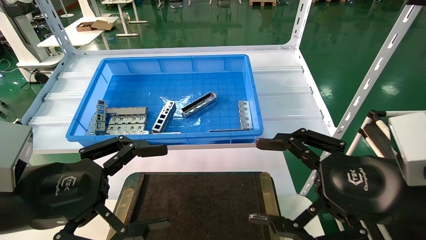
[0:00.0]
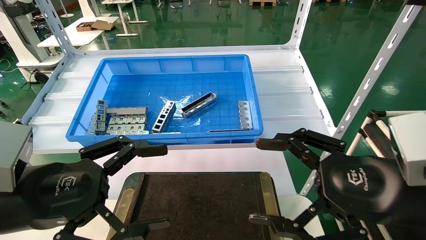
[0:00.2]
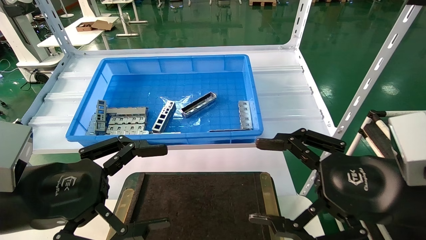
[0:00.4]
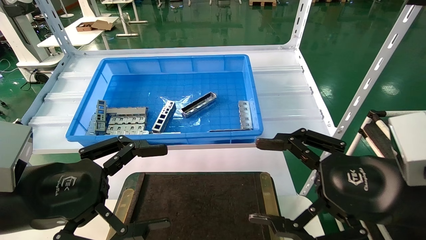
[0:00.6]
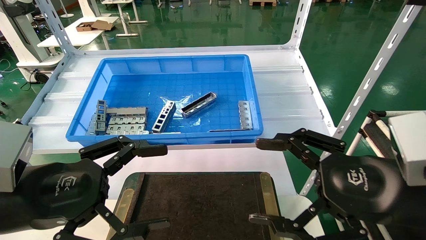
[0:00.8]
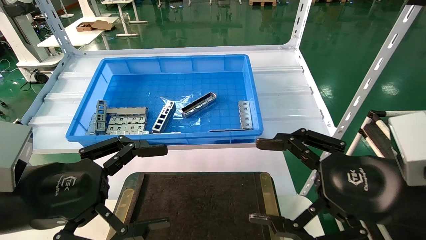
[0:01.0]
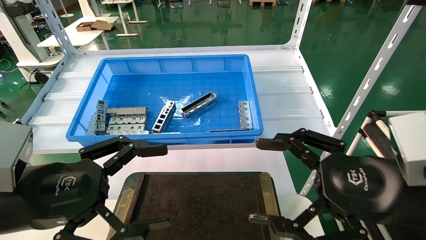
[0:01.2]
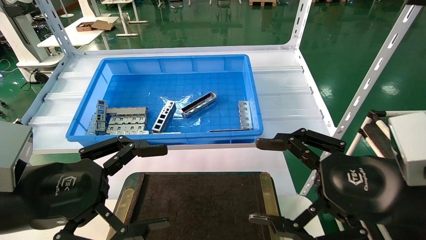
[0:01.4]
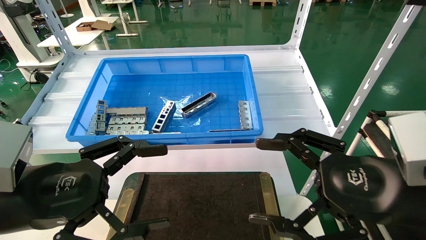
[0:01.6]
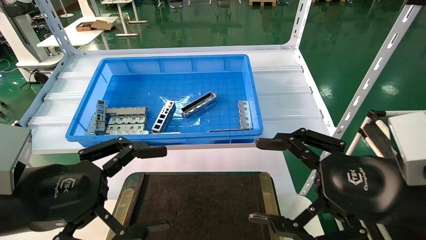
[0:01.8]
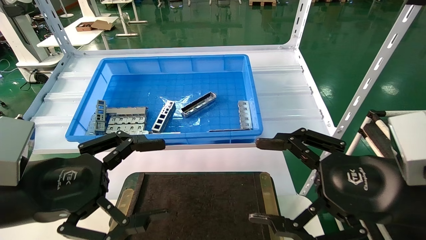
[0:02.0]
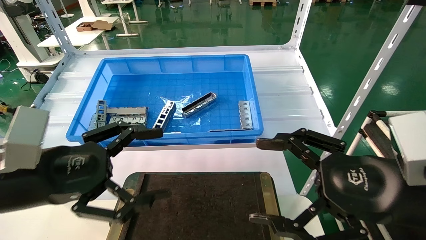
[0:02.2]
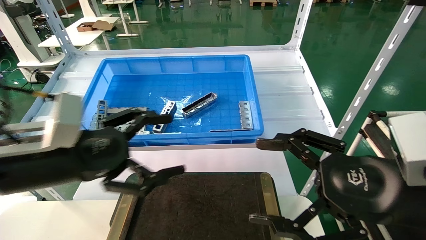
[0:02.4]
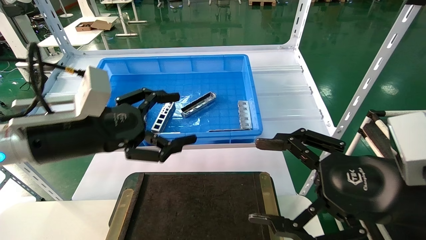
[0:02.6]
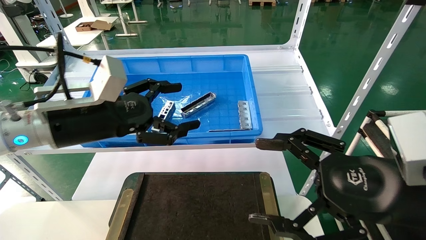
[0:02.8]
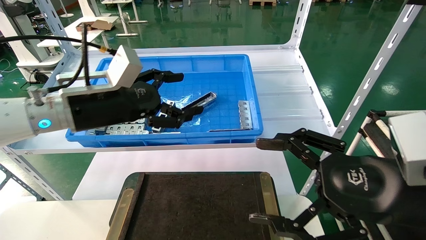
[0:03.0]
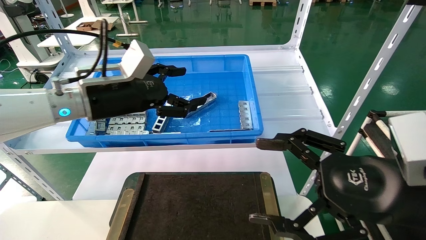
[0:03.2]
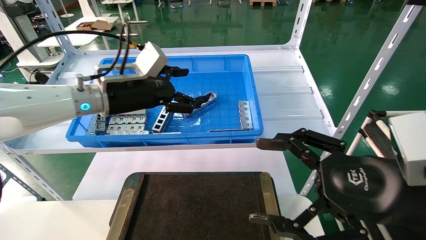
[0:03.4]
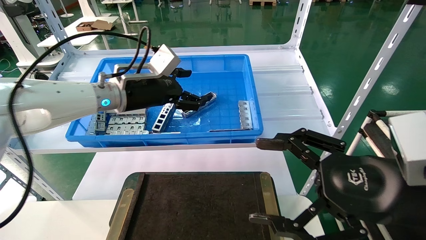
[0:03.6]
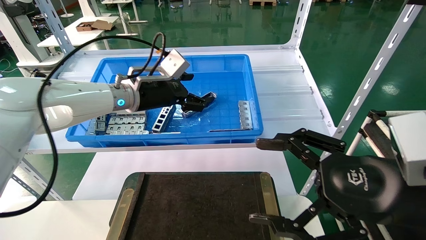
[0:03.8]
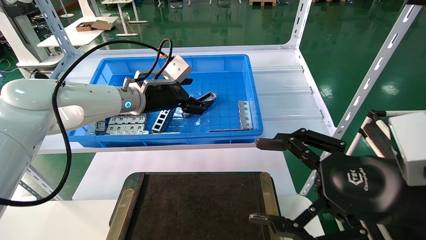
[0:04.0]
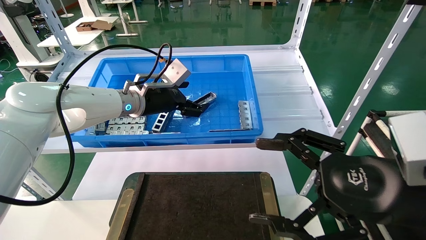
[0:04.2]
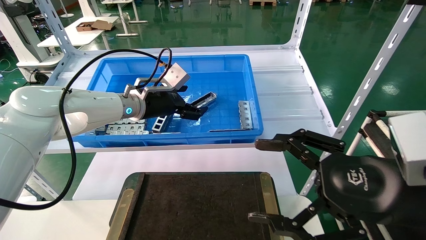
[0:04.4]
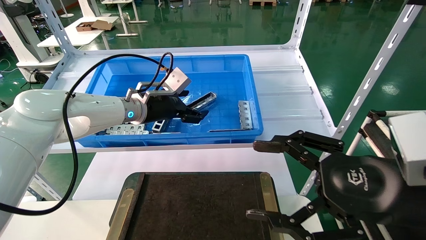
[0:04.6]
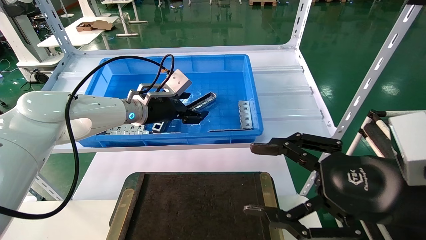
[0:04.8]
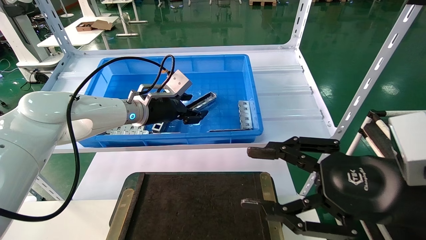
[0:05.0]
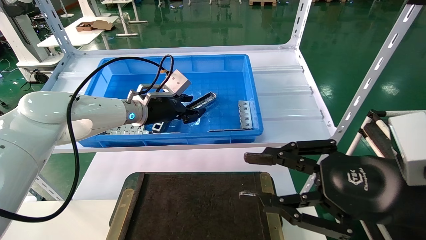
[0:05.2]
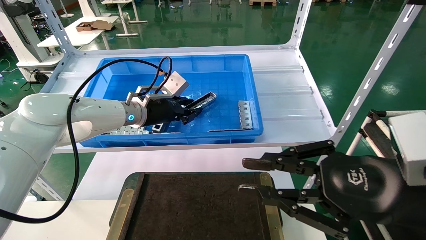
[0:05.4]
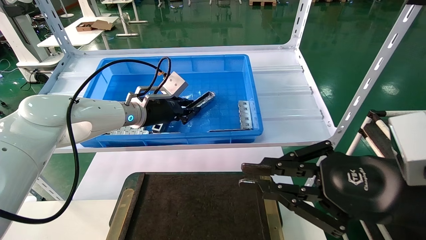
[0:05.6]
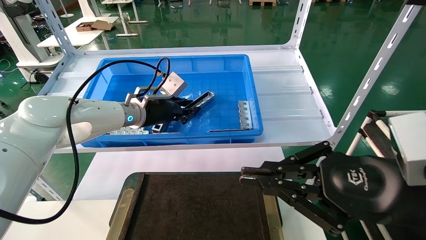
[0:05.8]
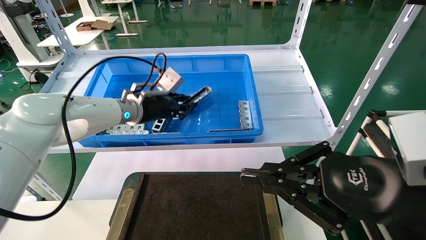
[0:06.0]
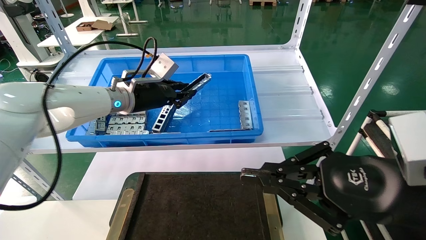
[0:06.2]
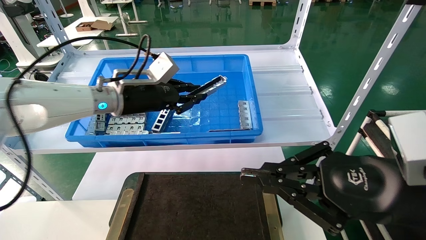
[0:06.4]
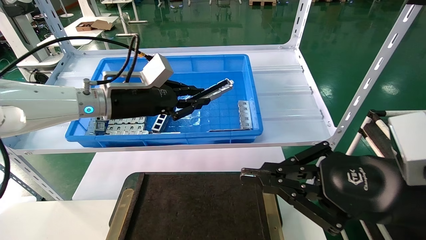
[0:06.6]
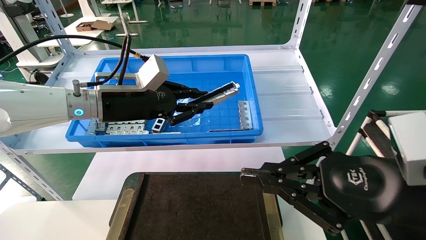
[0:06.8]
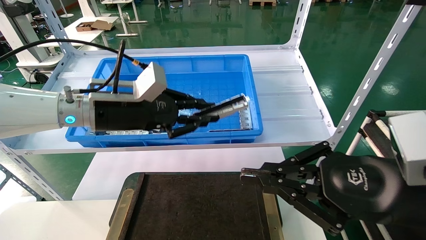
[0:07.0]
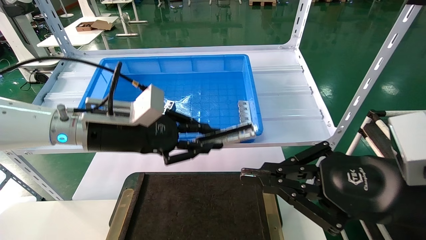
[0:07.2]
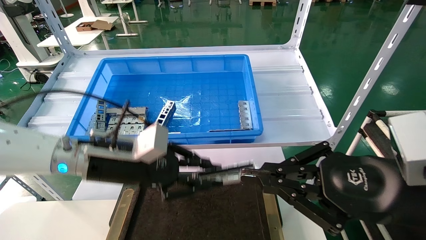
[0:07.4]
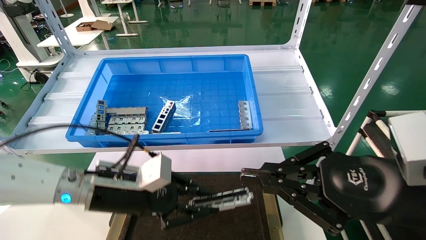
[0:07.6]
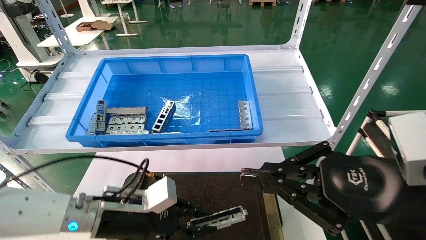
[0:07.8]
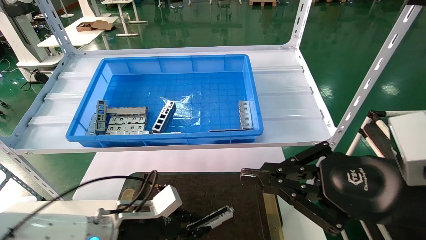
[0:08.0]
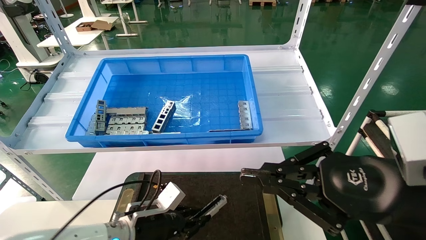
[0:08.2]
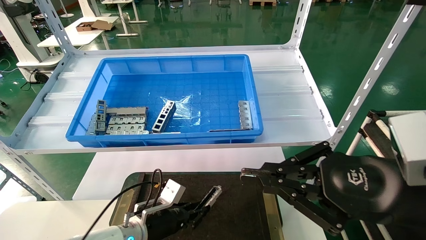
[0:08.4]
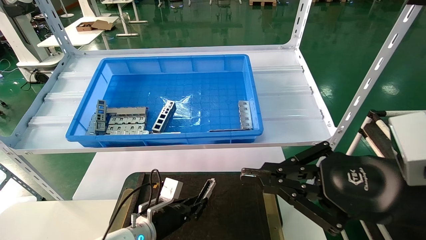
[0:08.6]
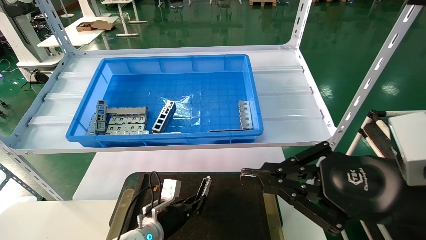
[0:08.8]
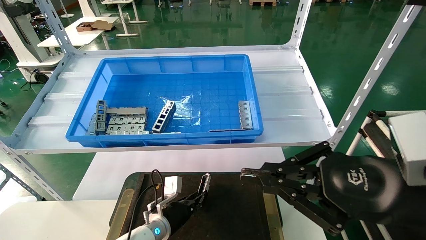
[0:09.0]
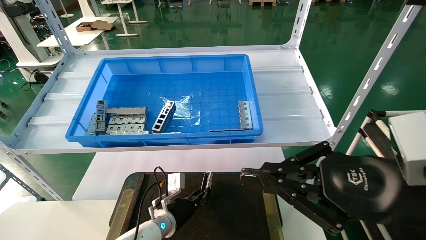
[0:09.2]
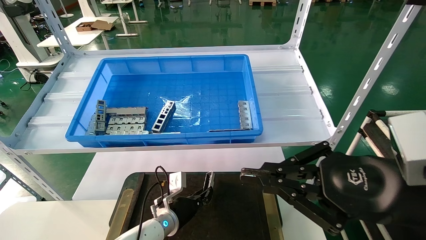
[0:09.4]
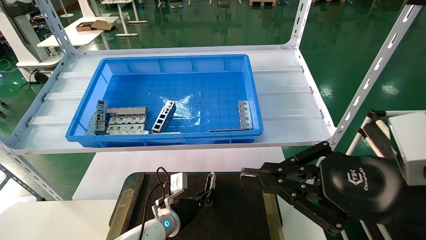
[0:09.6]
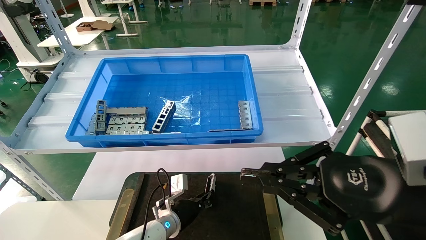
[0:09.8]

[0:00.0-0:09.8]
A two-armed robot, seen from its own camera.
Task of the whole recording: Grasp the part with one hand and place it on the black container.
Step, 0:02.0 to 0:05.4: Pick up the front USB bracket from the feeding area.
0:00.0 to 0:01.4: Neither gripper changes place.
0:01.4 to 0:02.8: The left gripper travels forward and upward by roughly 15 cm.
0:02.8 to 0:04.2: The left gripper shifts approximately 15 cm forward.
0:04.2 to 0:05.6: The right gripper closes. The left gripper closes.
0:05.6 to 0:07.0: The left gripper moves backward, approximately 10 cm.
0:07.0 to 0:08.4: The left gripper travels downward by roughly 30 cm.
0:08.4 to 0:09.8: The left gripper travels forward and to the right by approximately 10 cm.

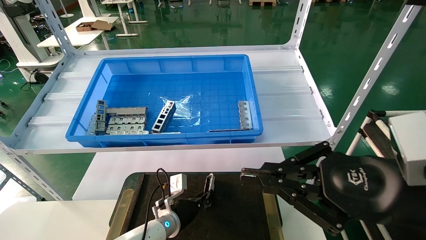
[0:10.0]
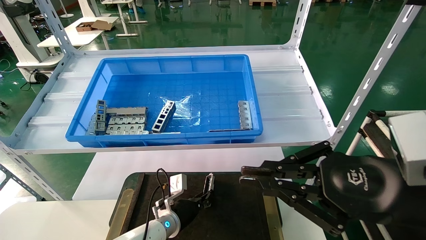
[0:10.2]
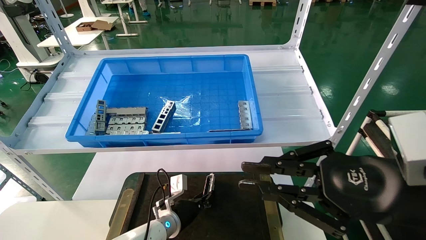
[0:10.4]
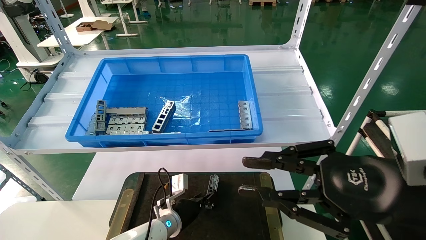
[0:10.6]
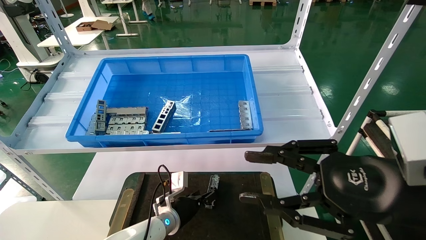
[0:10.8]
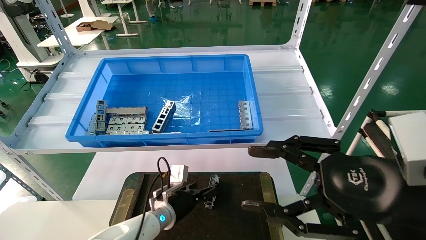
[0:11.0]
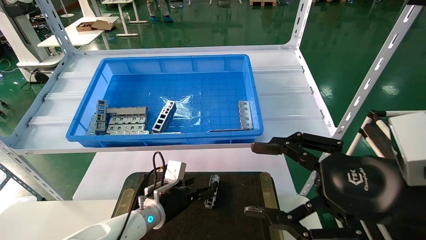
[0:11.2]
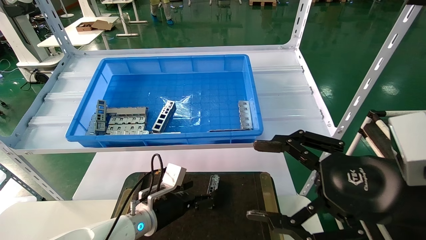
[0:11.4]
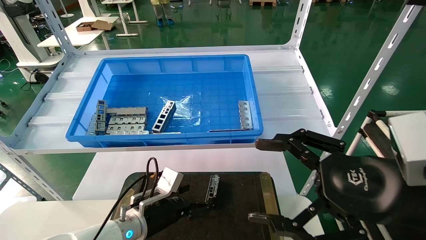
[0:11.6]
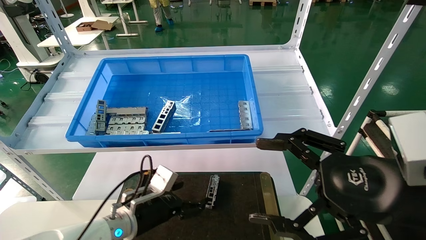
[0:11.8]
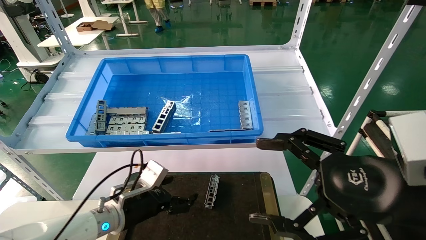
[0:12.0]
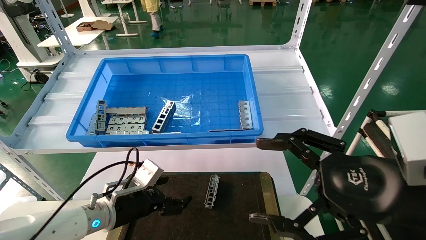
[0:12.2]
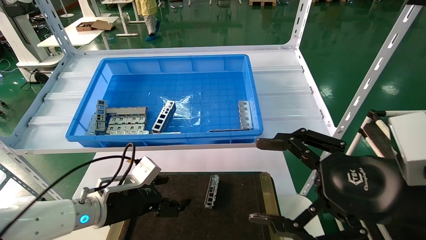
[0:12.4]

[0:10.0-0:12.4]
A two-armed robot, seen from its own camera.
Task of the whole recording: Grasp the part with one hand and place it on the black container.
0:10.0 to 0:11.2: The left gripper heads upward, covering some 5 cm, and opens its fingers. Meanwhile the right gripper opens.
0:11.2 to 0:12.4: The left gripper travels to the left, upward and backward by some 15 cm.

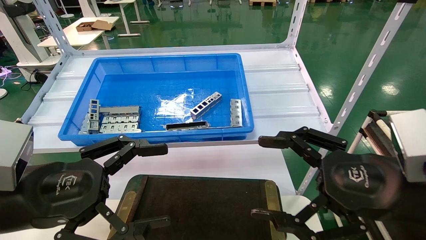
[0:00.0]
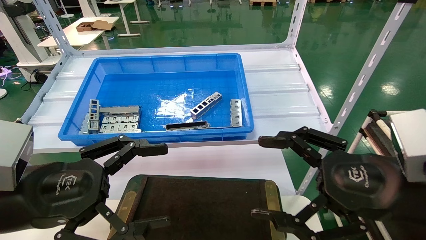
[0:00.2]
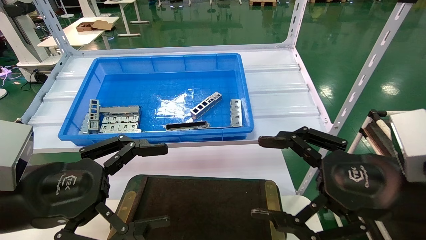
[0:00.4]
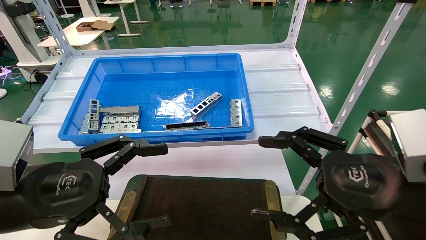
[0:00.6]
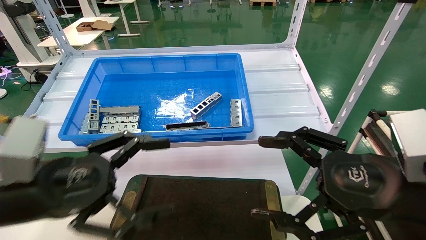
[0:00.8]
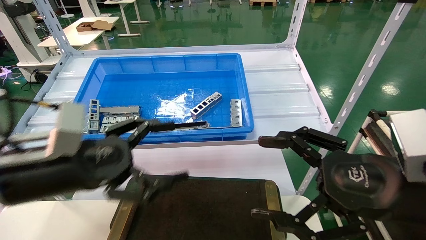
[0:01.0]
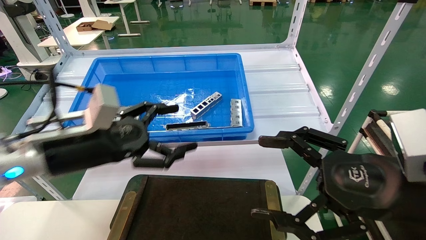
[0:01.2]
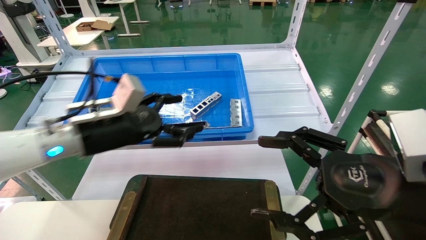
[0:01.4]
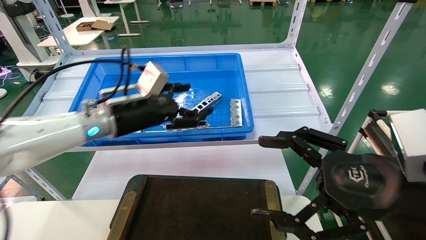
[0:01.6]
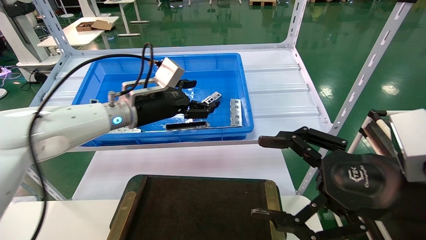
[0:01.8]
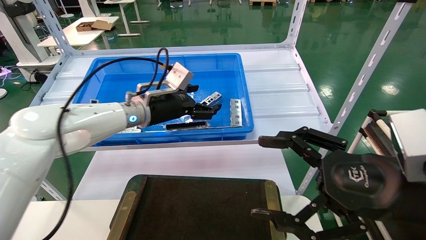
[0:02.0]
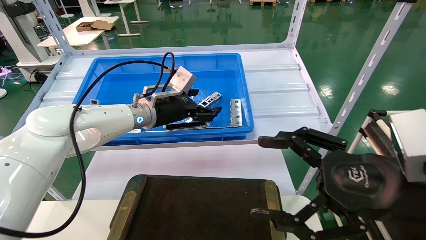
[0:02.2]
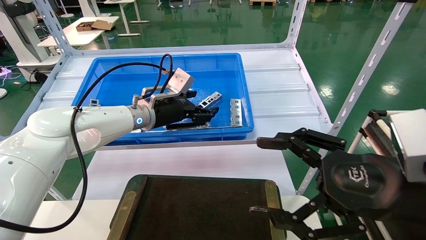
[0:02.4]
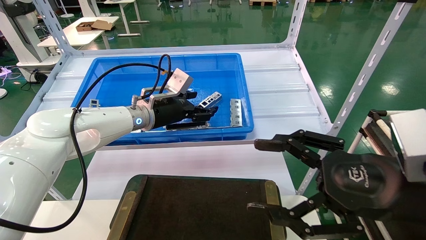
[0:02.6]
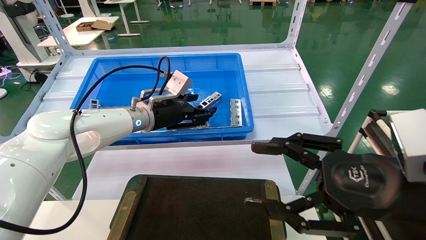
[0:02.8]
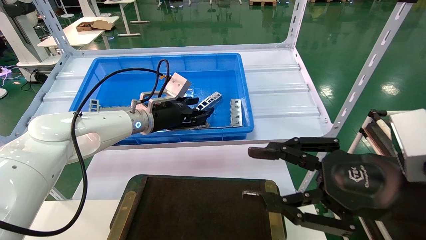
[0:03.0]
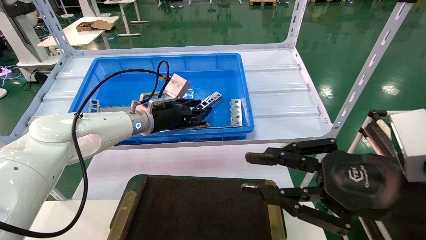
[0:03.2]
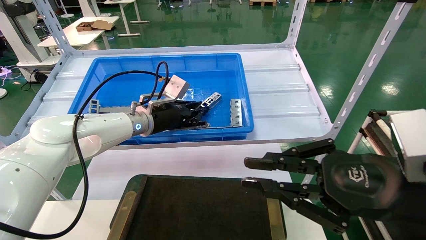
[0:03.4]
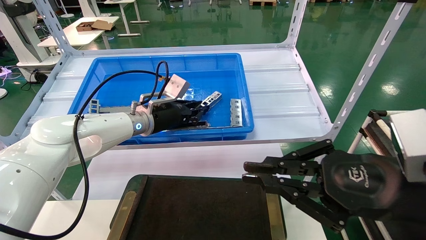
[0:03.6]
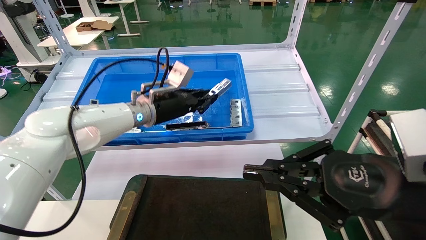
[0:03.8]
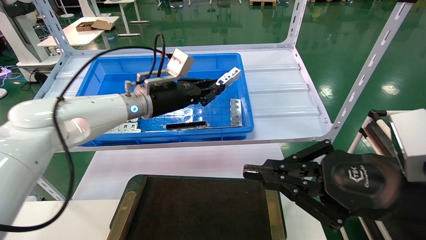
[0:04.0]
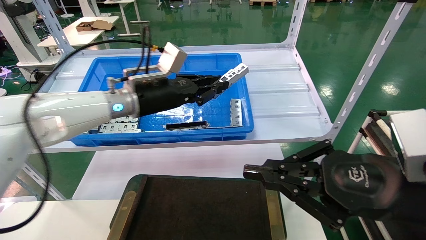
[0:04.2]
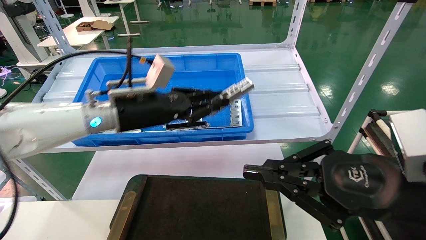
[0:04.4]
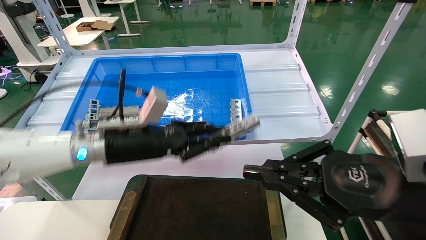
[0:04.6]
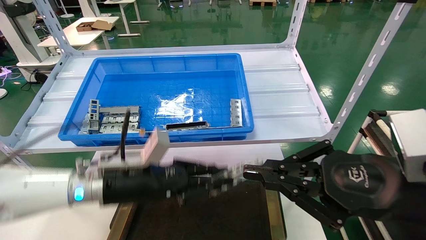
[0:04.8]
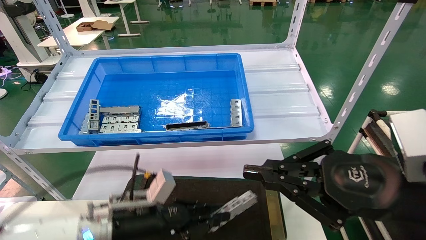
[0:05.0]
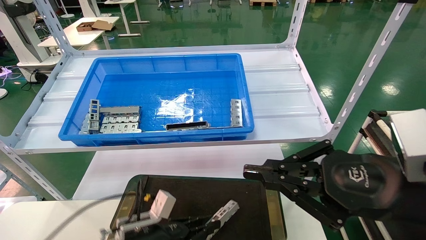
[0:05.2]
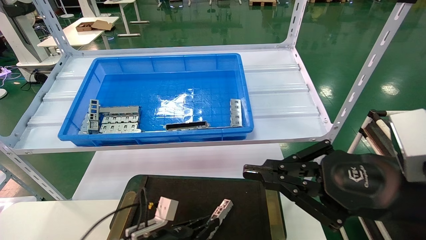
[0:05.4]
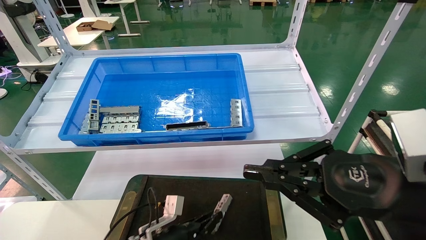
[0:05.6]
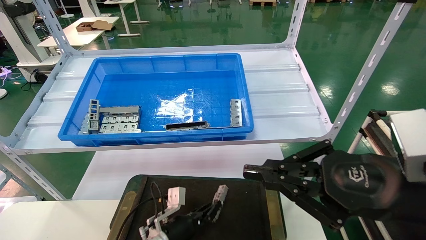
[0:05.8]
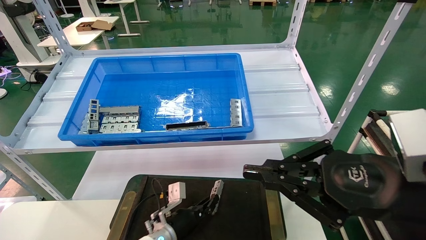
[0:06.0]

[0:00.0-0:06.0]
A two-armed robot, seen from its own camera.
Task of the whole recording: Grasp the part with one hand and place it on the black container.
Step, 0:01.0 to 0:03.6: Pick up the front USB bracket from the feeding area.
0:00.0 to 0:01.6: The left gripper moves forward, about 20 cm.
0:01.6 to 0:03.0: The left gripper goes approximately 10 cm forward, and closes its fingers. Meanwhile the right gripper closes its fingers.
0:03.0 to 0:04.4: The right gripper closes, while the left gripper travels backward by roughly 10 cm, and closes.
0:04.4 to 0:06.0: The left gripper shifts some 30 cm downward.
